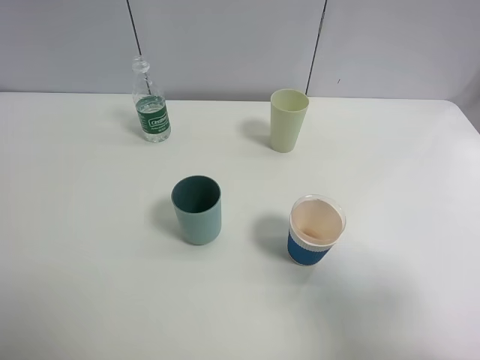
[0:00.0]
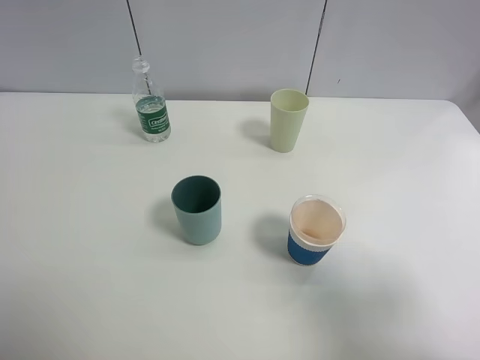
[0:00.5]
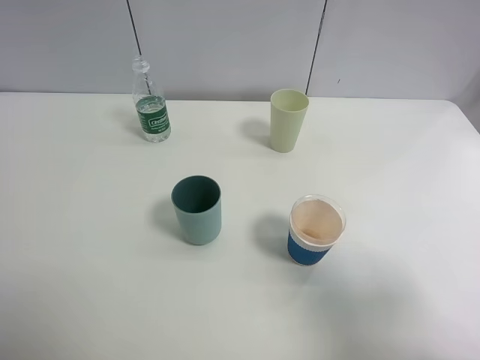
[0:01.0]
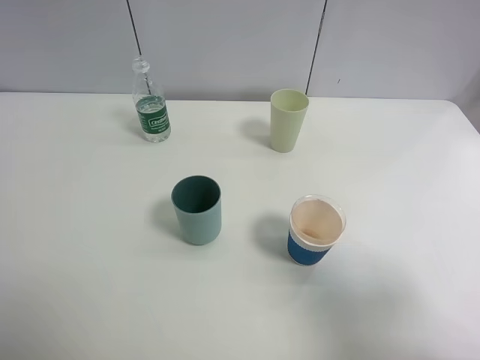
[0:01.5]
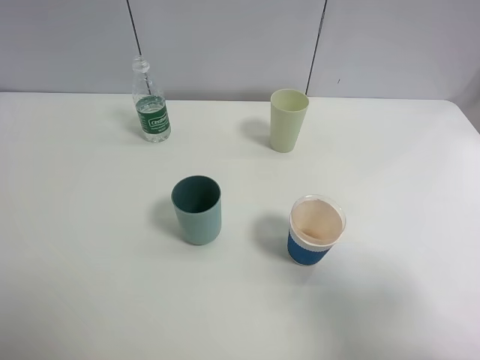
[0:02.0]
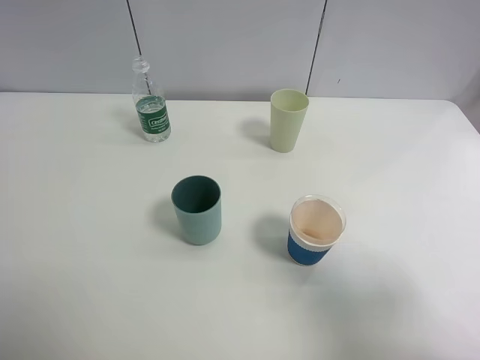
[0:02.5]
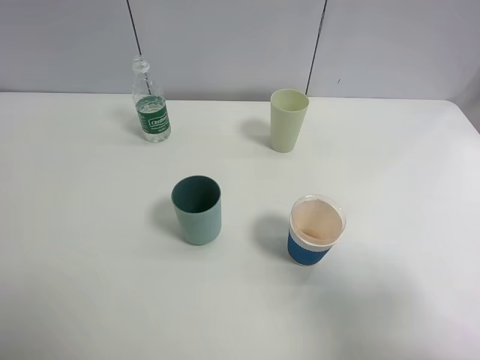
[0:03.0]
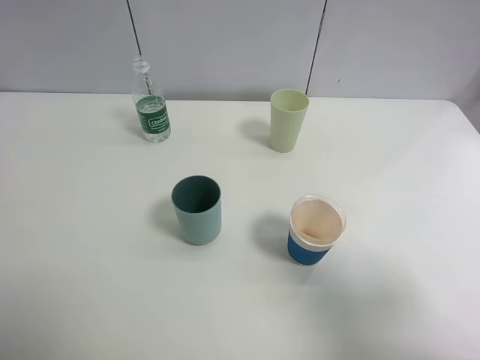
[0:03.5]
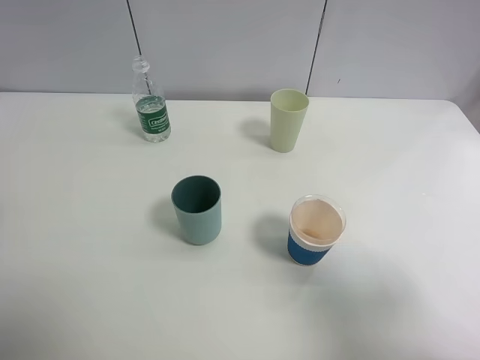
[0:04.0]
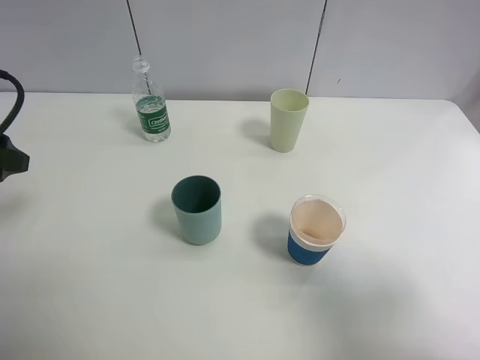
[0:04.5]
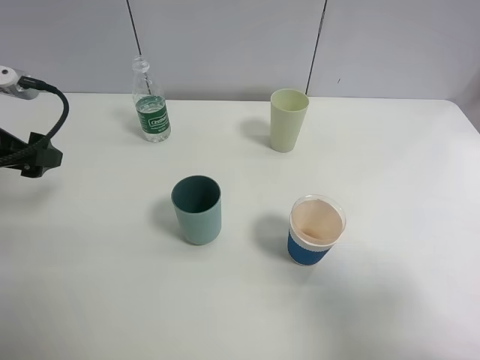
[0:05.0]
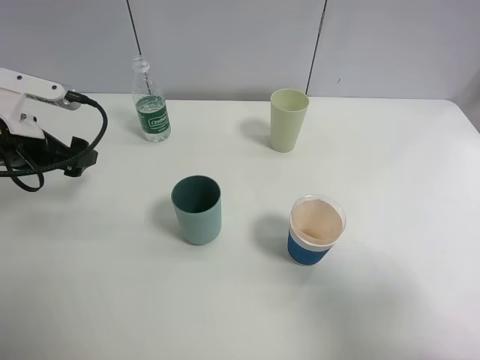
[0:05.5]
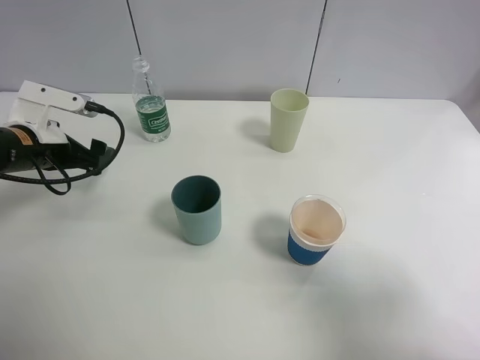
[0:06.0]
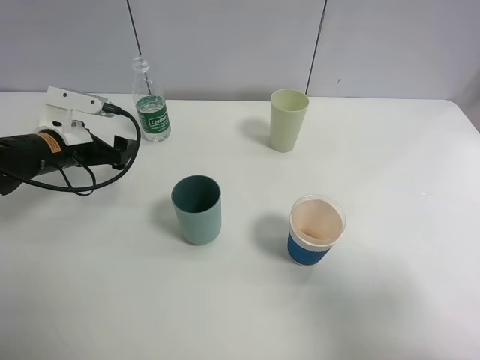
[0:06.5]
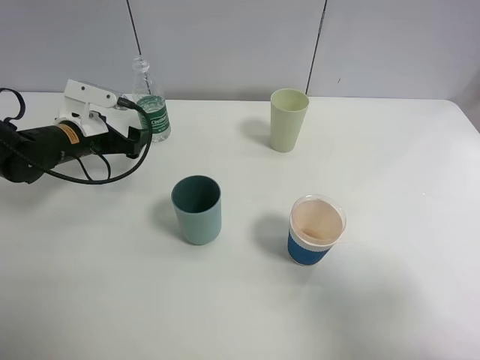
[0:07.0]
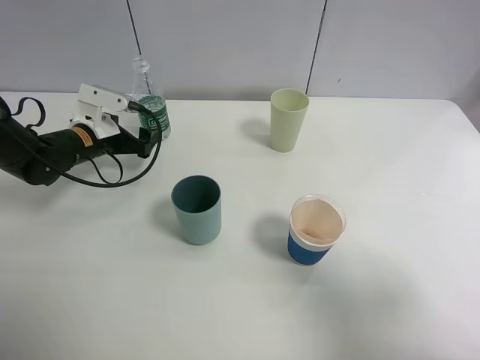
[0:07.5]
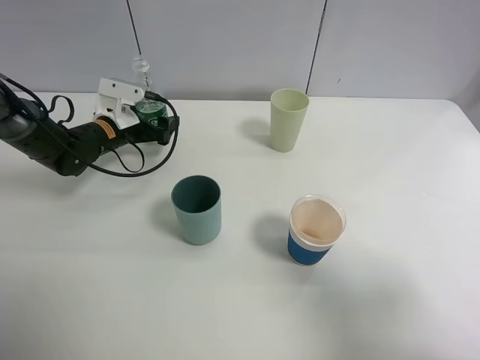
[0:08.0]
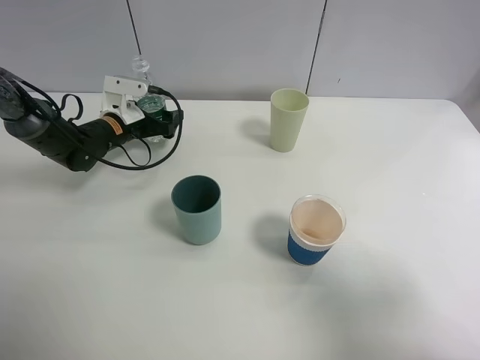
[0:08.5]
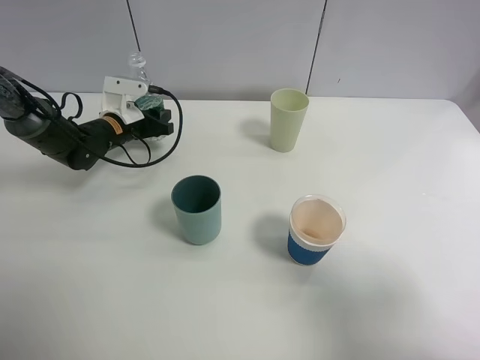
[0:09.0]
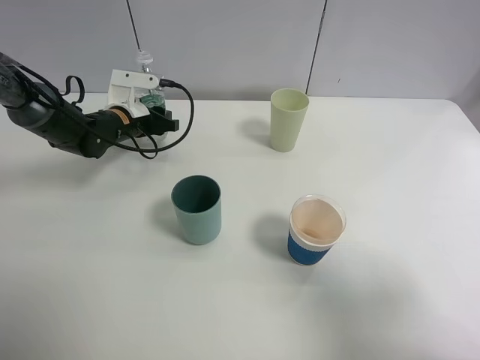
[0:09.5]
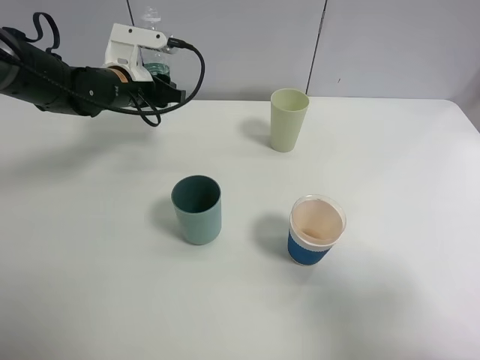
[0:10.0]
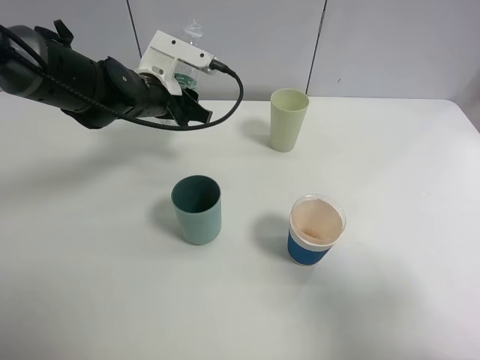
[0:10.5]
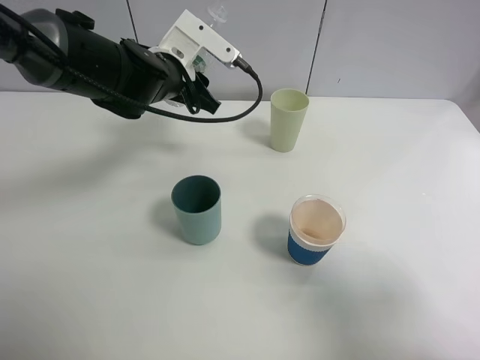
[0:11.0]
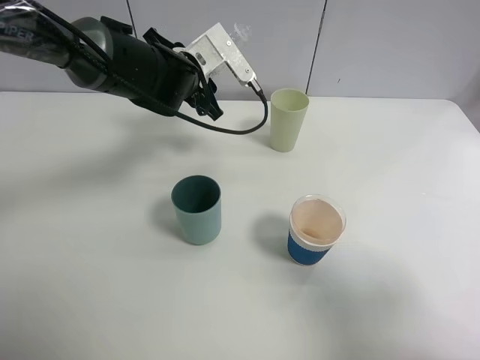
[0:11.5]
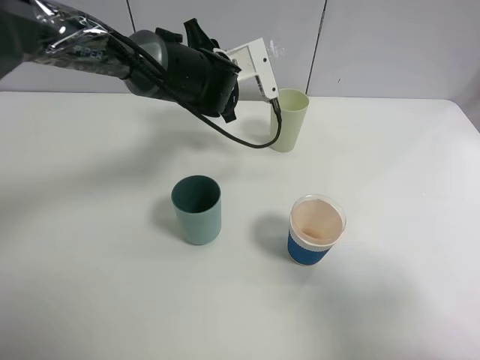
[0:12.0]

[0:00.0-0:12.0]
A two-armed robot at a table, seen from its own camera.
Task of the whole recording: use a clamp to hold the bottle of the drink, pour the beverage into a random cup, then clamp the cup containing the drink and pour the drink into another random cup.
Step, 0:00.0 to 0:09.5: Pick up the water bottle with left gripper.
0:00.0 to 0:02.0: Both grippers stay put.
0:04.0 to 0:06.0: The left gripper is displaced forward and downward by some 25 cm.
0:06.0 to 0:08.0: The left gripper moves forward, downward and to the right, some 15 cm.
0:08.0 to 0:10.0: The left gripper heads upward, covering about 10 cm, and closes up.
0:10.0 to 0:12.0: The left gripper moves to the right, roughly 15 cm.

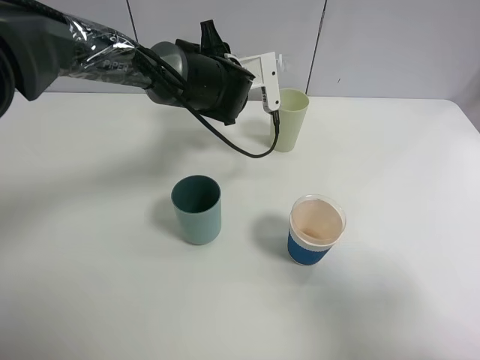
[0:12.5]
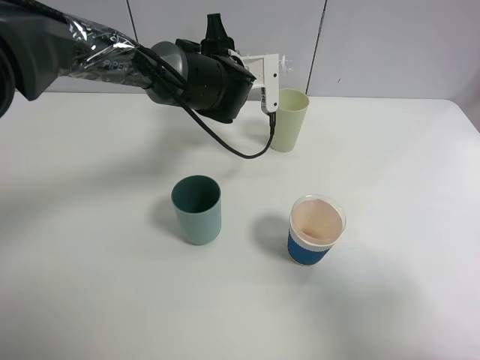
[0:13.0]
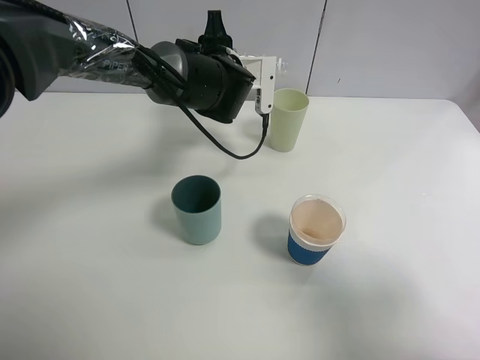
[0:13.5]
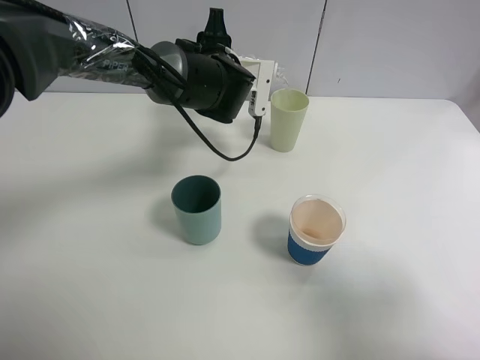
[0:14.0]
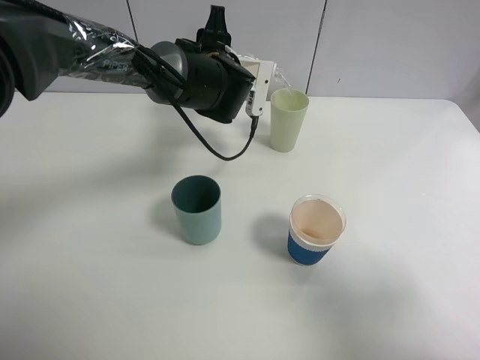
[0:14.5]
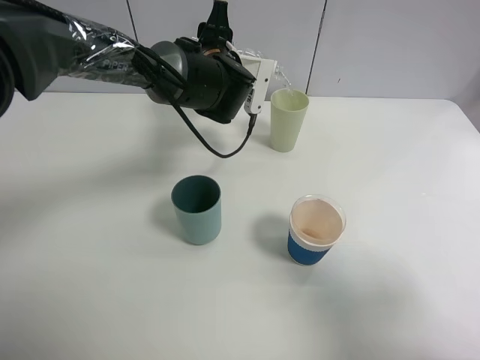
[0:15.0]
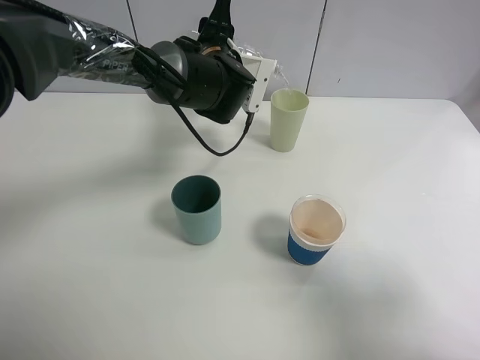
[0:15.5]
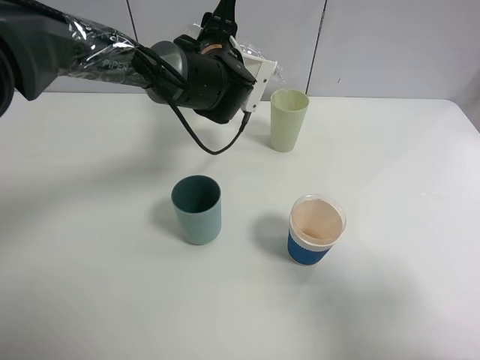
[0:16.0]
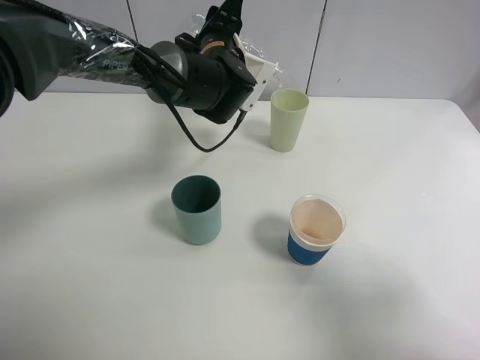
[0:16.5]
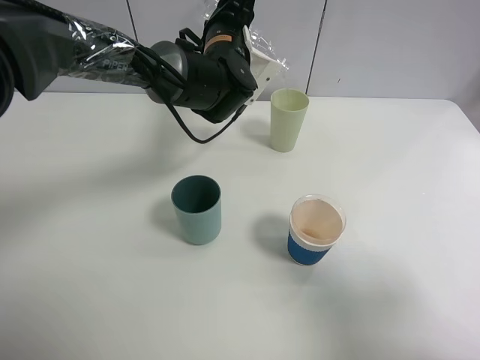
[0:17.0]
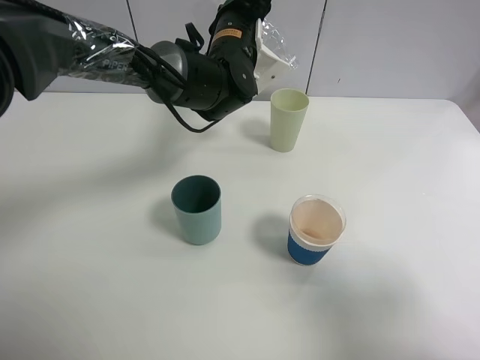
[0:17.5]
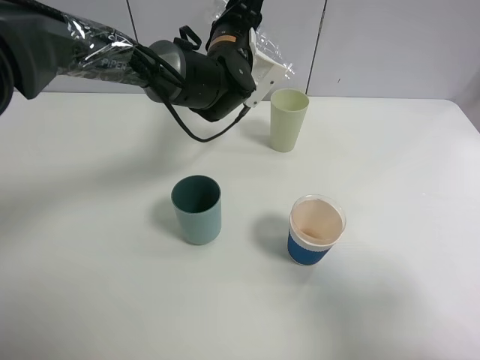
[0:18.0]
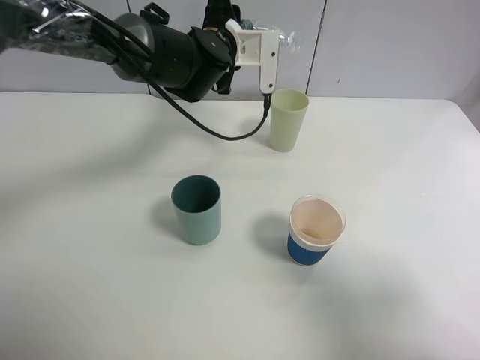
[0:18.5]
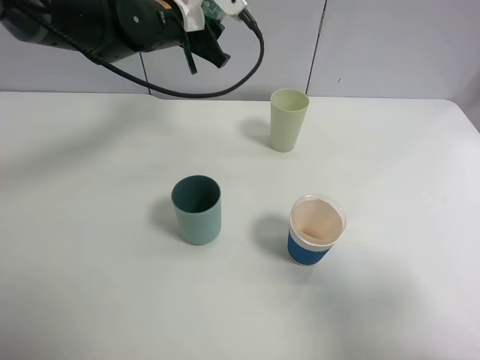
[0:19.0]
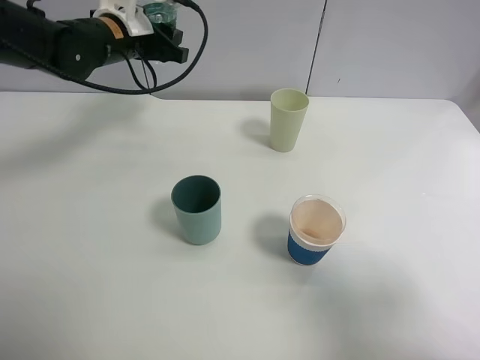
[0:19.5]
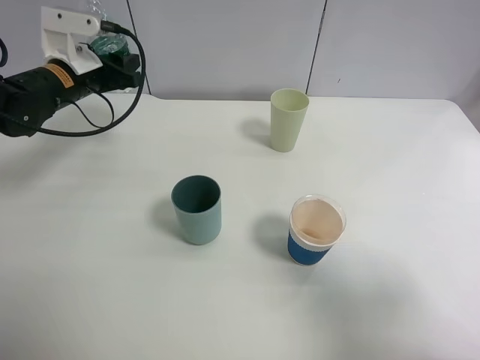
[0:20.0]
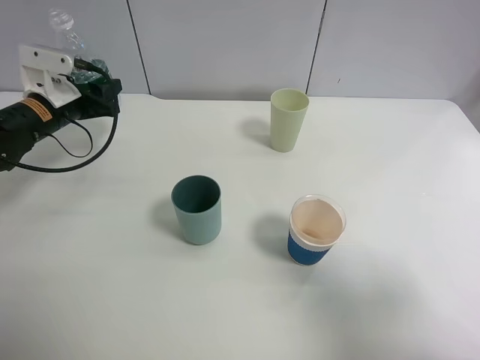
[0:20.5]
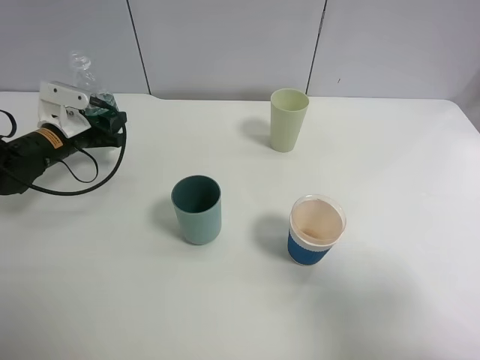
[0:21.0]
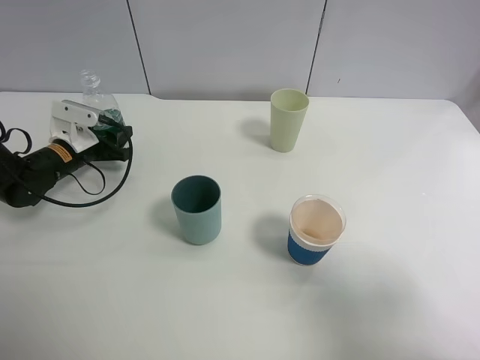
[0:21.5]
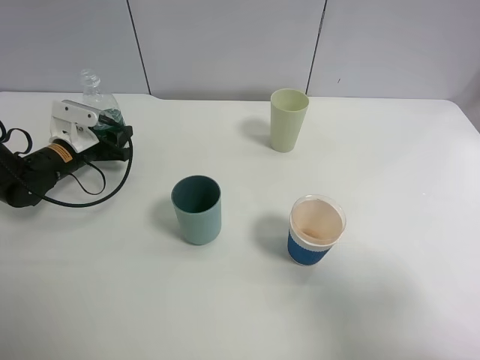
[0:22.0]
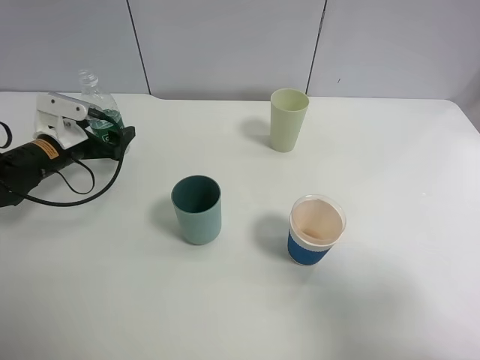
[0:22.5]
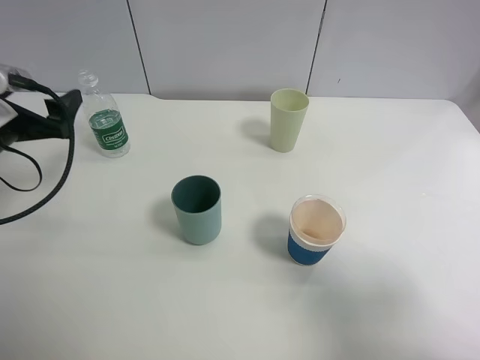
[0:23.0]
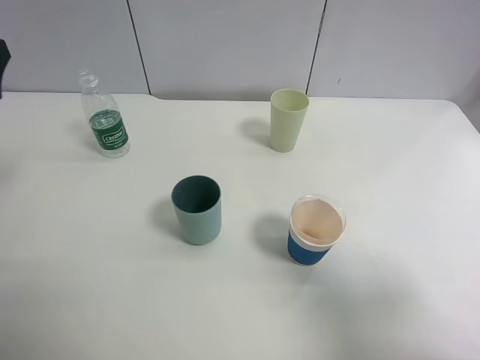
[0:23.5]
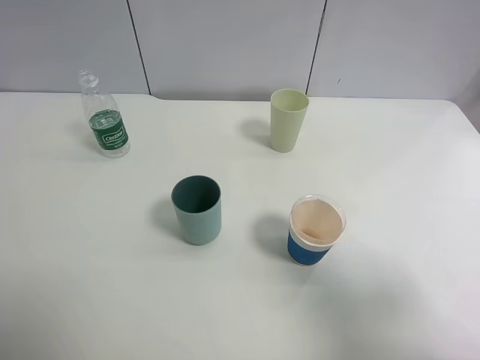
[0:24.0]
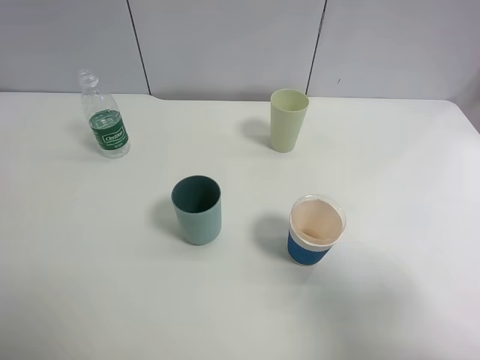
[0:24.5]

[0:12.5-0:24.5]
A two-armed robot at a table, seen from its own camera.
Task of the whole recording: use a clamp to hold the bottle of the drink, pour the beverage into a random cup, then clamp the cup containing the drink and pour the drink into another random cup.
Step, 0:12.5 to 0:18.0: Pour the water into the green plastic cup with left gripper.
Step, 0:18.5 to 0:22.0: Place the water bottle on the table with left gripper.
0:12.5 to 0:14.5: The grippers make only small movements.
0:14.5 to 0:16.5: There are only small adjustments of the grippers.
0:18.5 to 0:20.5: The left gripper goes some 25 cm to the left.
0:20.5 to 0:22.5: The left gripper shifts by about 5 cm, and opens.
0:22.5 to 0:24.5: The left gripper goes roughly 40 cm backward and upward.

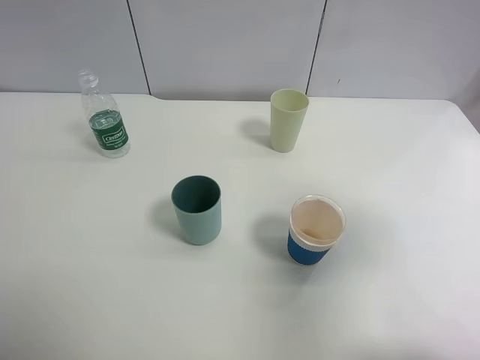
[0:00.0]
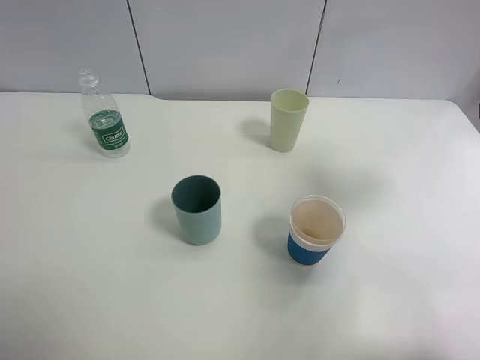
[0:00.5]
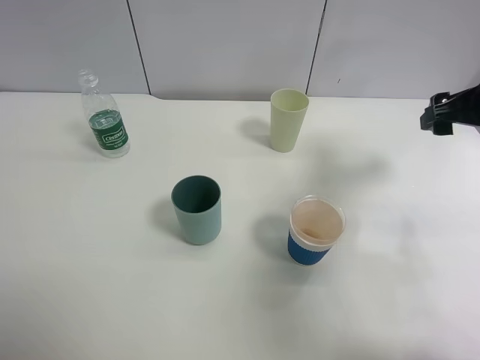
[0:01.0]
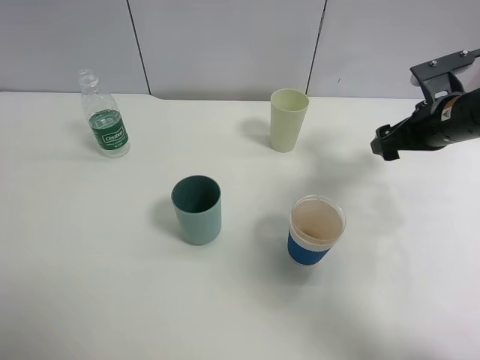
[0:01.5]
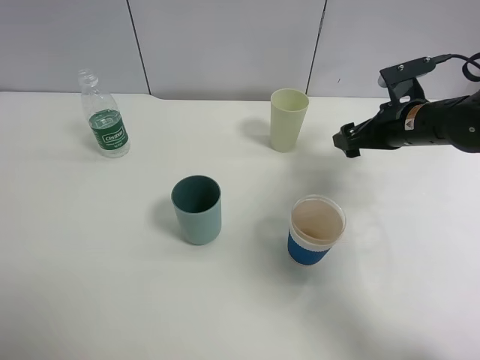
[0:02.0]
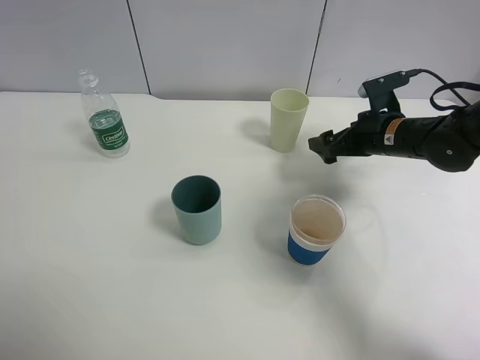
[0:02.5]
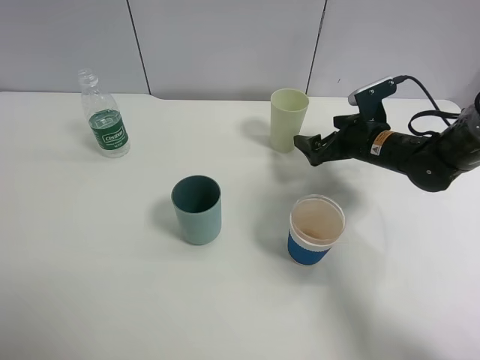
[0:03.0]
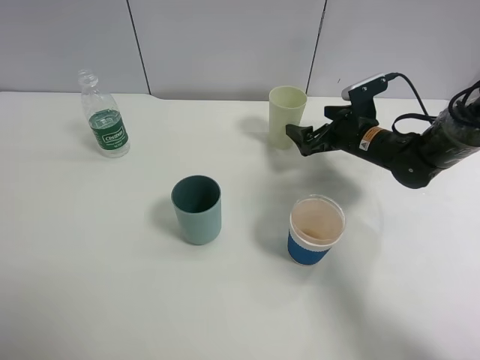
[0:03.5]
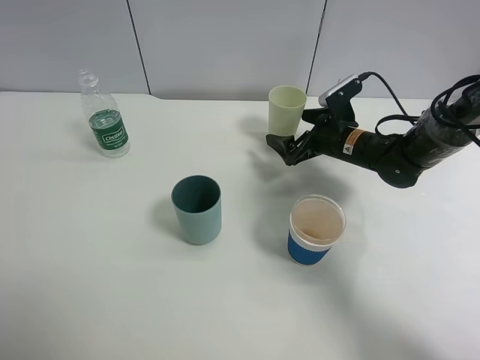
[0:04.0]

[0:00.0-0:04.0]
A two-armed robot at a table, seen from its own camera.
Task of the whole recording: use a clamp to hold the bottle of the drink, pour the beverage into a random cup, then clamp the cup containing the drink and pour the drink into another random cup.
0:00.0 to 0:02.0: The right gripper travels forward and downward by roughly 30 cm.
0:02.0 to 0:04.0: The right gripper shifts some 10 cm downward and to the left.
